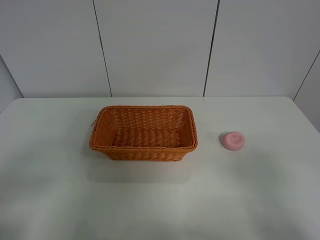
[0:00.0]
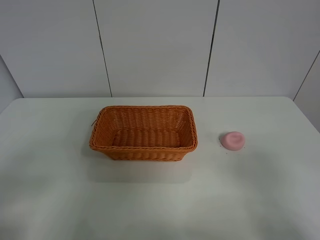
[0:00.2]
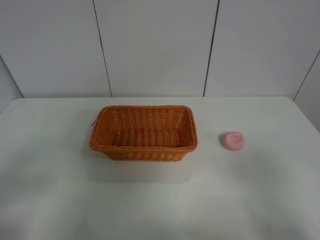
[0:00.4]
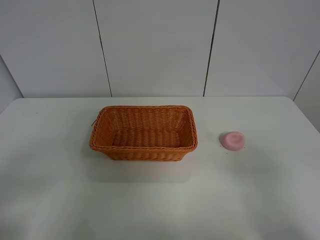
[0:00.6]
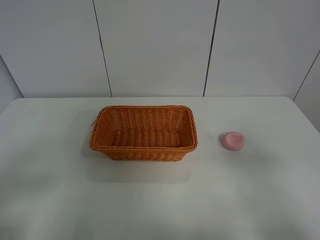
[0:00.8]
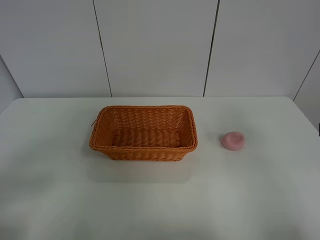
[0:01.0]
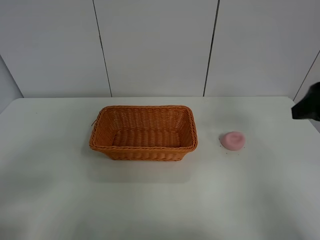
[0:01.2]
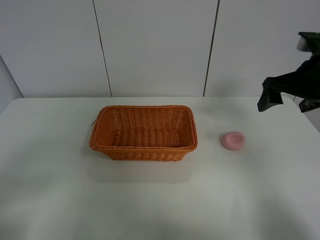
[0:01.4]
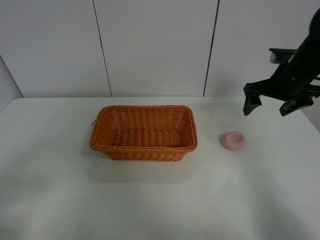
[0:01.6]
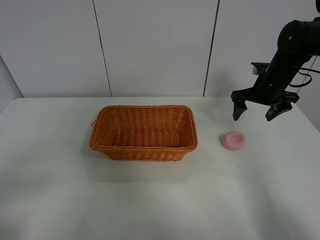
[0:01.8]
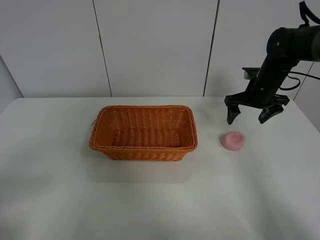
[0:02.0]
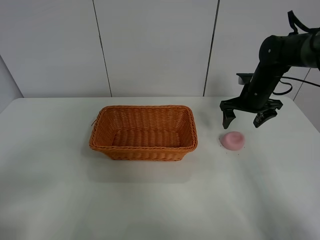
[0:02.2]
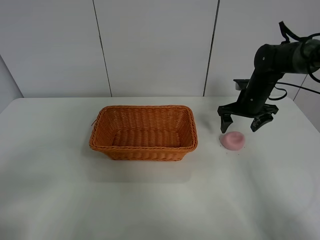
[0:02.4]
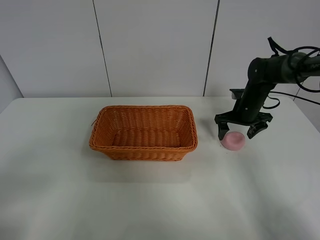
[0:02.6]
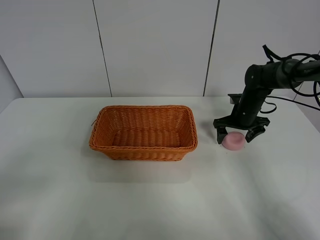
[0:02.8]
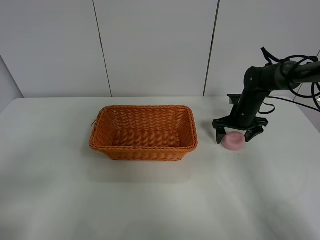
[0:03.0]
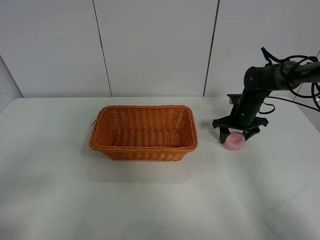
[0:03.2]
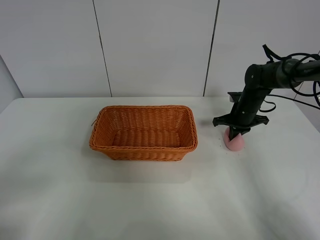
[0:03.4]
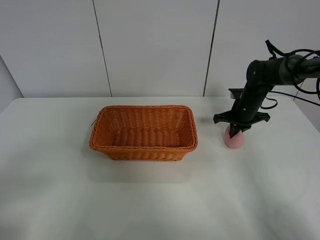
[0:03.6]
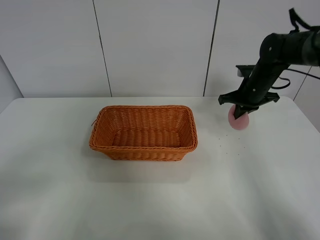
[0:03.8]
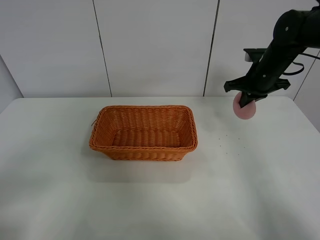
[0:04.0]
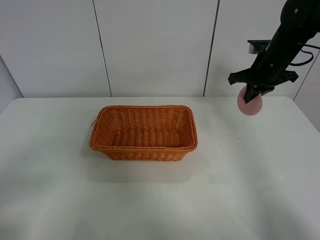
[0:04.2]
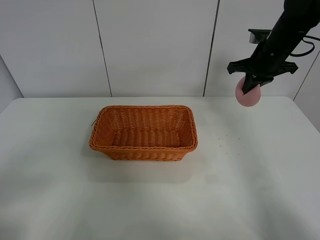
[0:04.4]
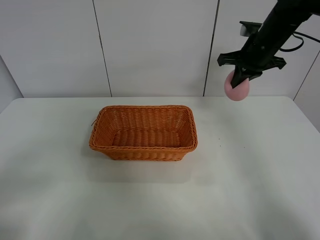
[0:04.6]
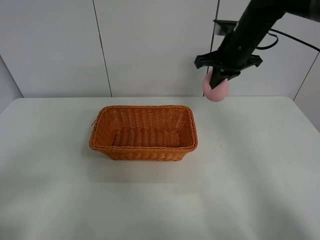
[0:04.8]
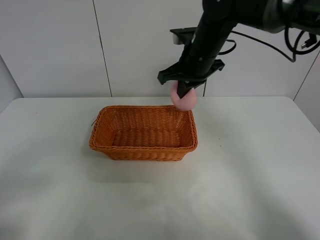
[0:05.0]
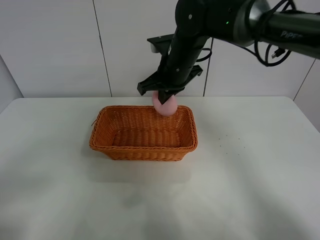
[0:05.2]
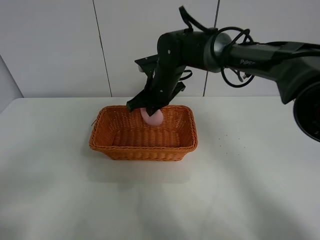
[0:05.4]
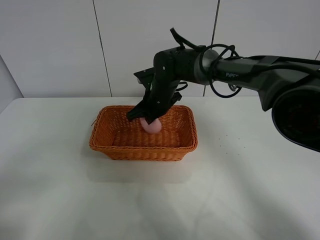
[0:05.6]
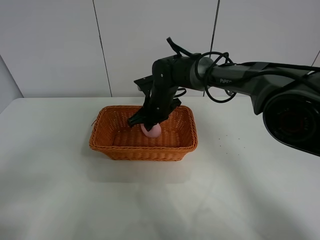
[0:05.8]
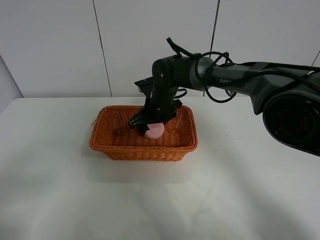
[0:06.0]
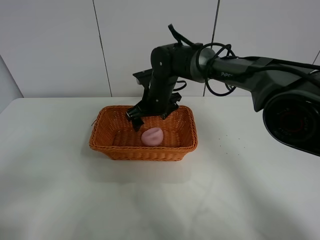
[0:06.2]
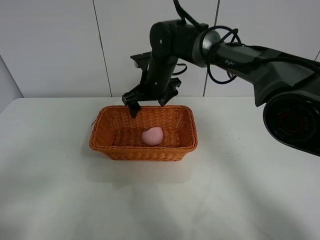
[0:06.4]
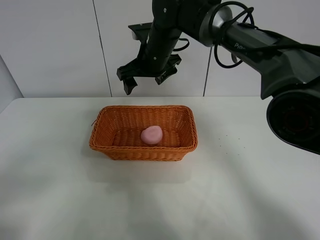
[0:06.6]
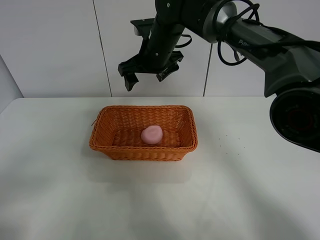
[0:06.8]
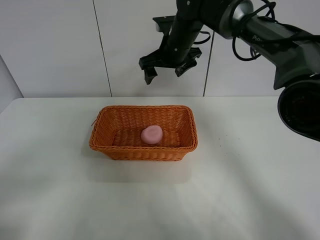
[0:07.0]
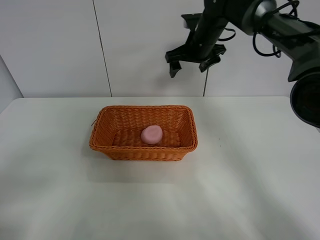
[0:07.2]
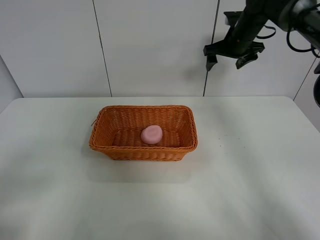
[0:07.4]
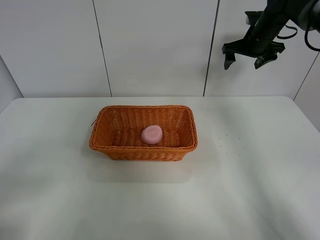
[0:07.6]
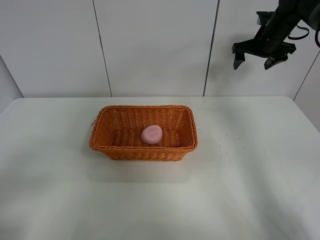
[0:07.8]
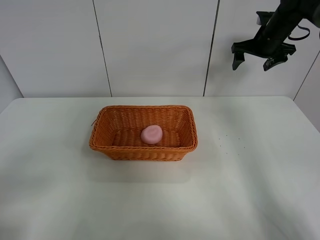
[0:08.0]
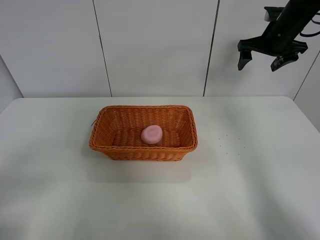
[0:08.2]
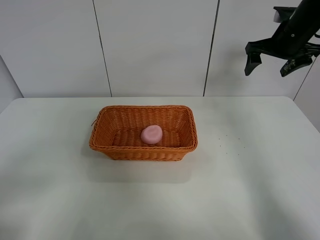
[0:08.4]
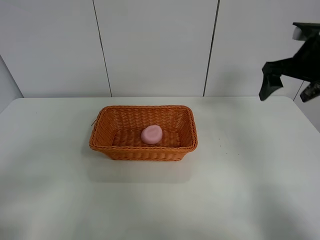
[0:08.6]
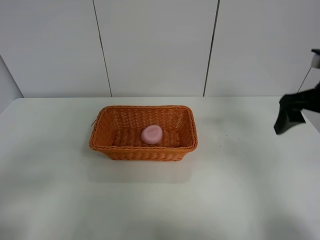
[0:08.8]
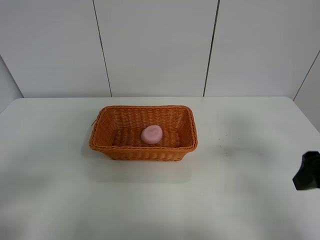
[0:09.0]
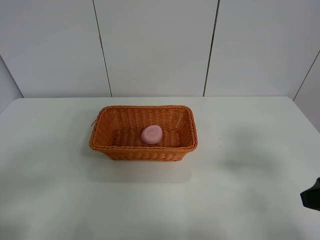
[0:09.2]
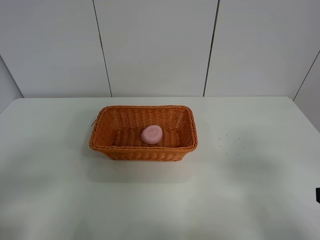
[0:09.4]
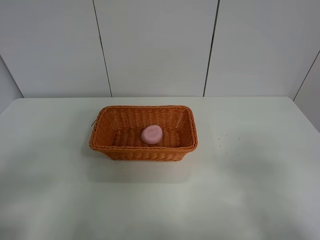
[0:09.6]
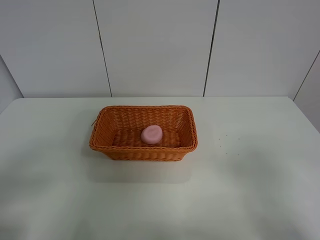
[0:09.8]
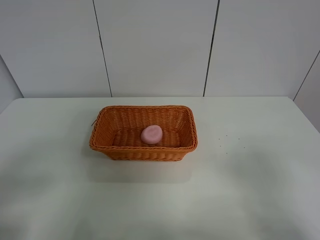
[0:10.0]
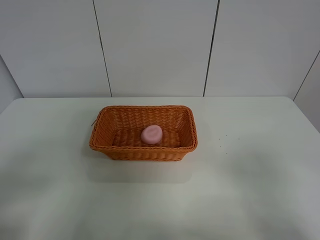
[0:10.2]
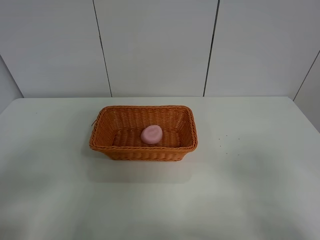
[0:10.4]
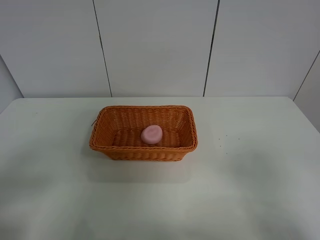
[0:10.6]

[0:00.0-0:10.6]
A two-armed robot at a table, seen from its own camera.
Step, 0:00.0 to 0:03.6: Grasp the peach with right gripper.
Step, 0:03.8 to 0:06.4: Place the peach in the basket with right gripper.
0:00.0 to 0:01.6: The right gripper moves forward, roughly 35 cm.
0:01.6 to 0:03.0: The right gripper is displaced downward and forward by roughly 15 cm.
0:03.0 to 0:04.6: The right gripper travels upward by about 20 cm, and closes up.
0:04.6 to 0:06.0: The right gripper travels to the left and downward by approximately 25 cm, and opens its fingers.
0:06.0 to 0:07.6: The right gripper moves to the right, upward and forward, about 30 cm.
0:07.6 to 0:09.0: The right gripper moves backward, some 35 cm.
0:09.0 to 0:10.6: The right gripper goes approximately 15 cm backward.
